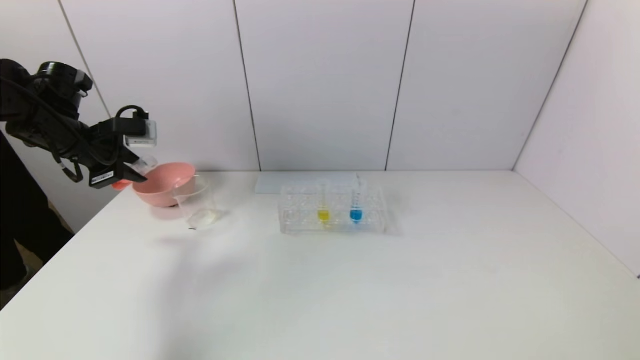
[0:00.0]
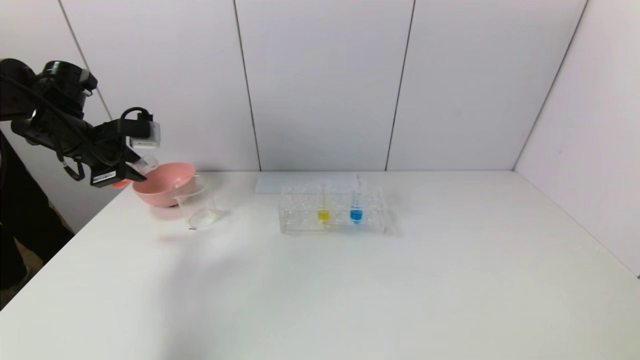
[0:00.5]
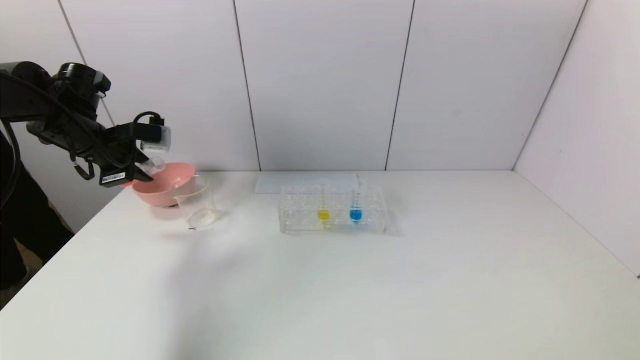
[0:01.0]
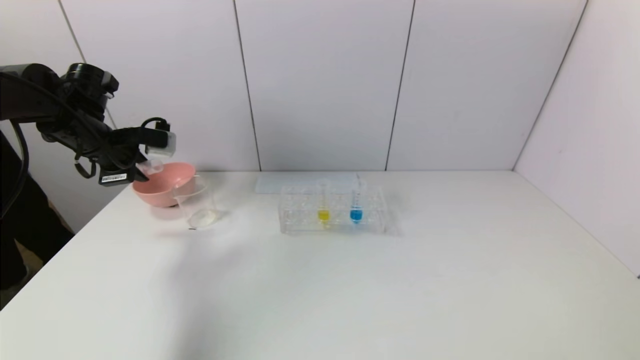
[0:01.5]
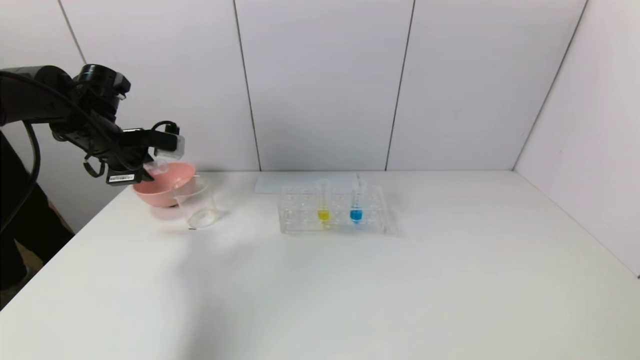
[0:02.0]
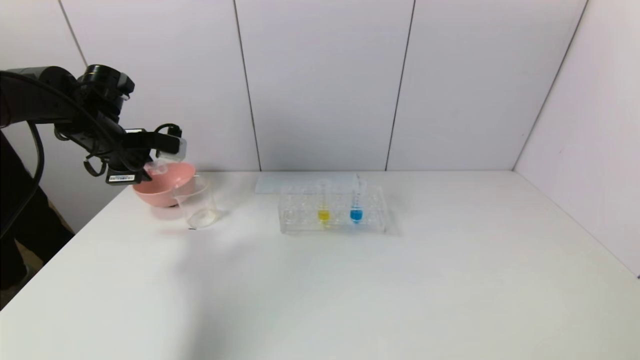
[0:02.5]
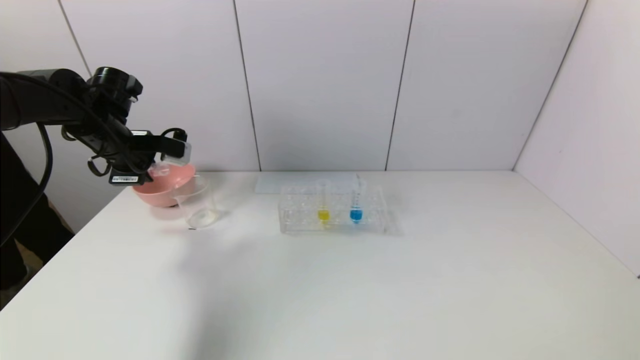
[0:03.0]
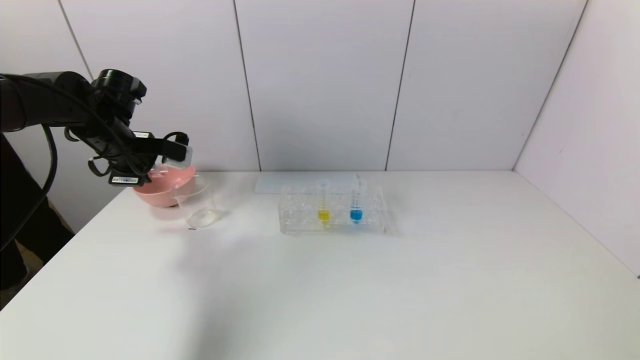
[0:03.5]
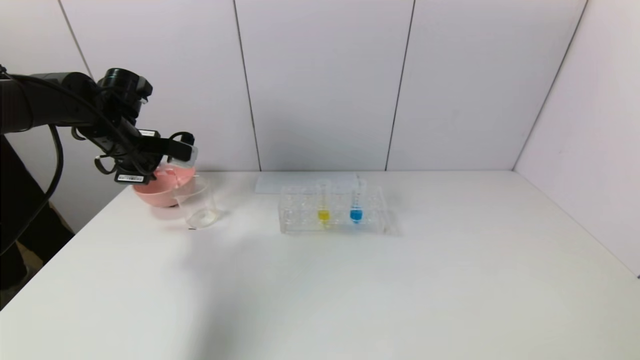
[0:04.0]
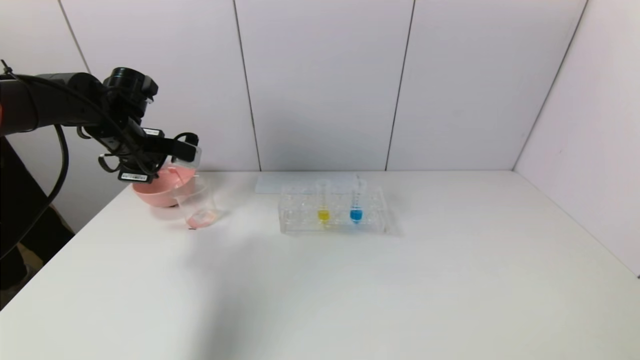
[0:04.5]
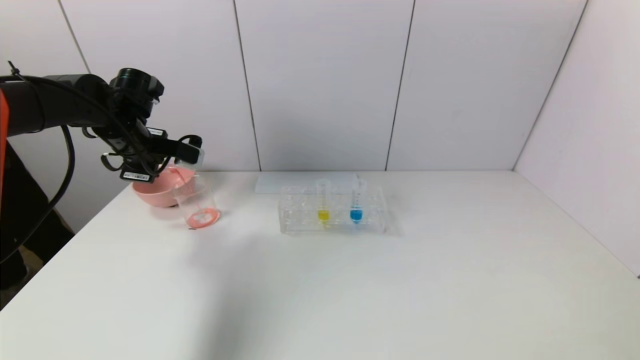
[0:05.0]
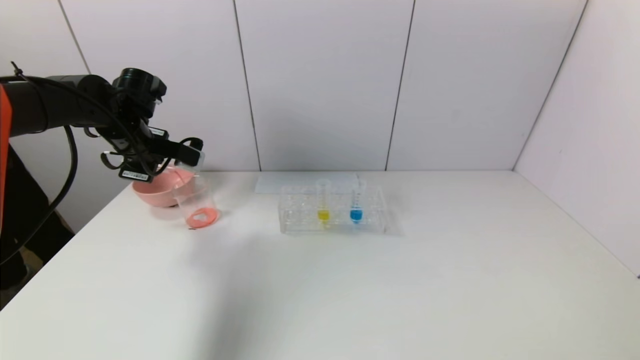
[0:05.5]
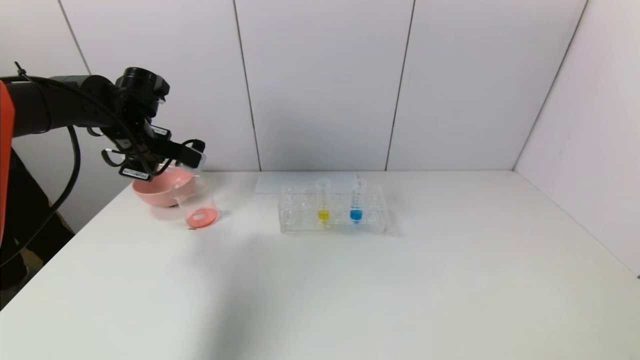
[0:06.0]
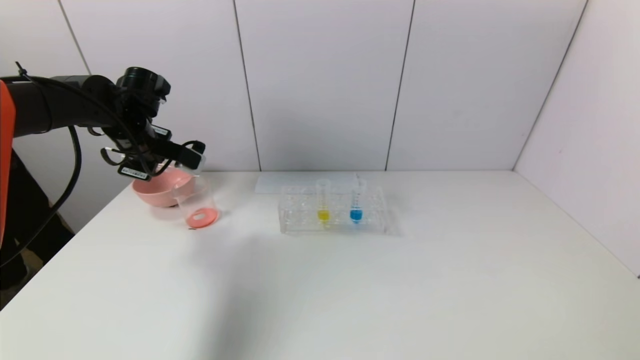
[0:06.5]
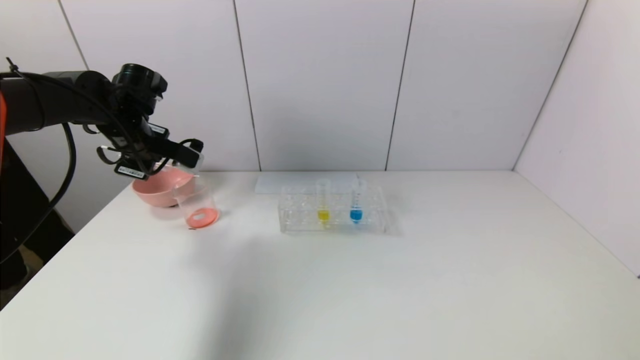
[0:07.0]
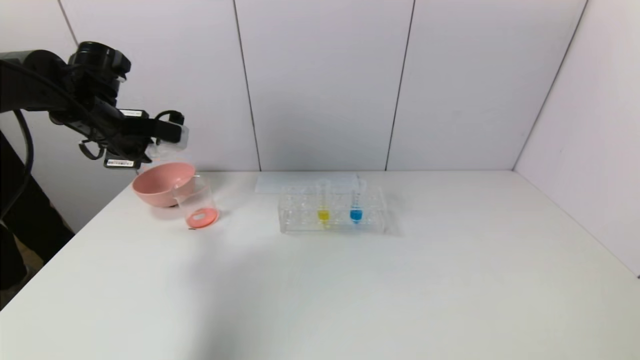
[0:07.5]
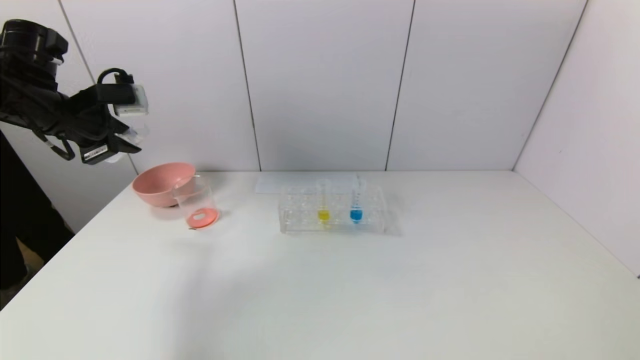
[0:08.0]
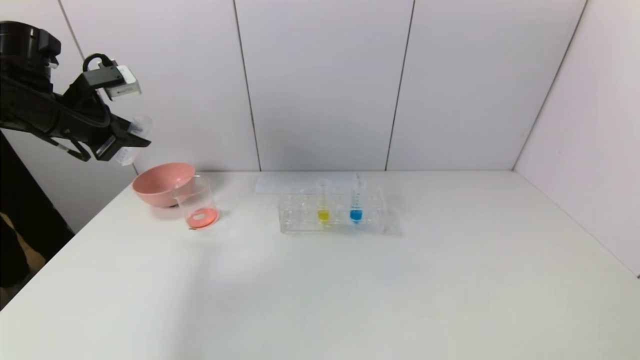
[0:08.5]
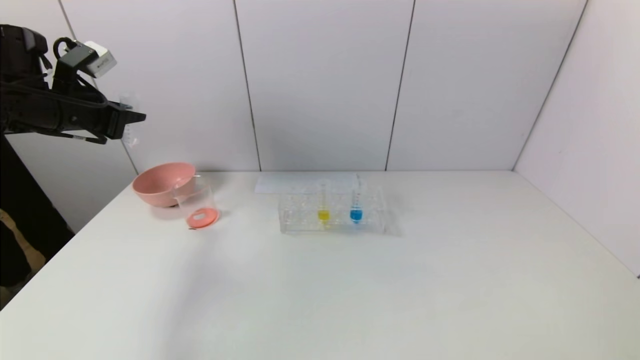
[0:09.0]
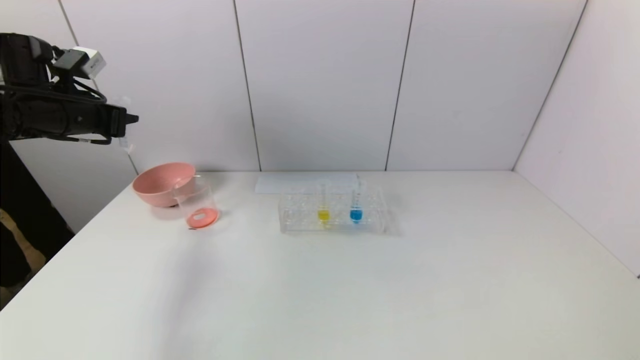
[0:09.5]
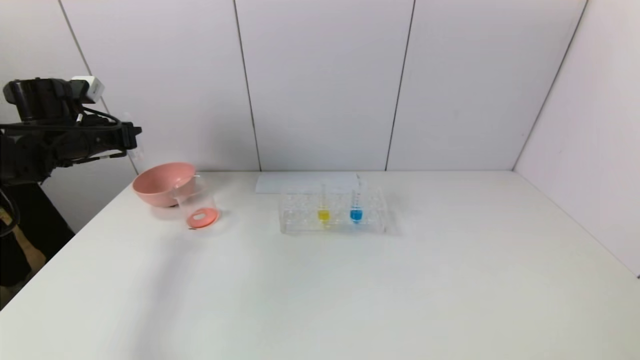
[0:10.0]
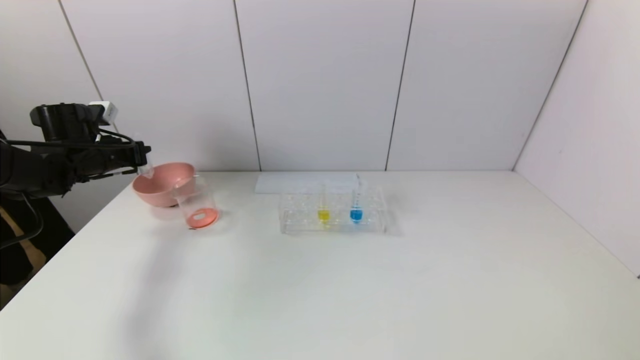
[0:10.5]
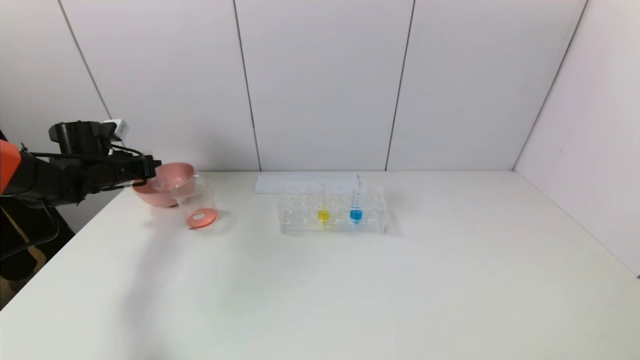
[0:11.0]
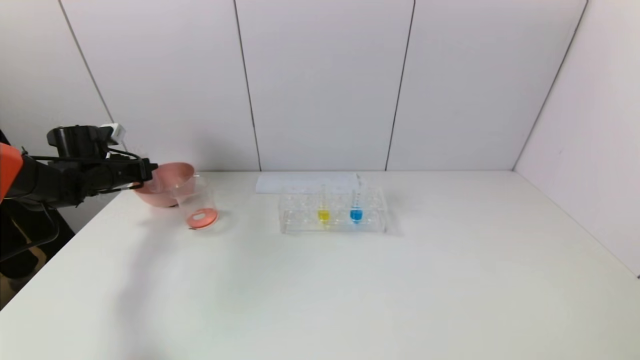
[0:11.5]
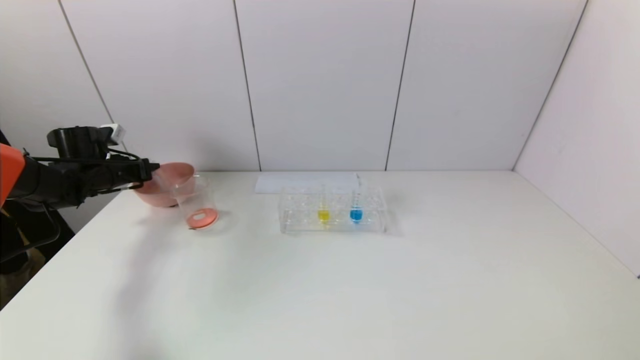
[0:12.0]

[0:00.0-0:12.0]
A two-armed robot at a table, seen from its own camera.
Task of the whole recording: pick up the test tube with yellow pigment and the test tube with red pigment by grippers and pour them into the beaker.
Step, 0:00.0 to 0:06.0: Pour the red reagent into the graduated cylinder with the left gripper.
0:00.0 to 0:02.0: The grippers stay close to where they were, moving slightly.
0:02.0 to 0:04.0: The grippers stay close to where they were, moving slightly.
0:04.0 to 0:06.0: There are only small adjustments of the grippers.
0:06.0 to 0:08.0: The left gripper heads backward, upward and to the left, covering approximately 10 cm.
0:08.0 to 0:10.0: The left gripper is displaced downward by about 5 cm.
0:10.0 to 0:12.0: The left gripper goes approximately 10 cm downward.

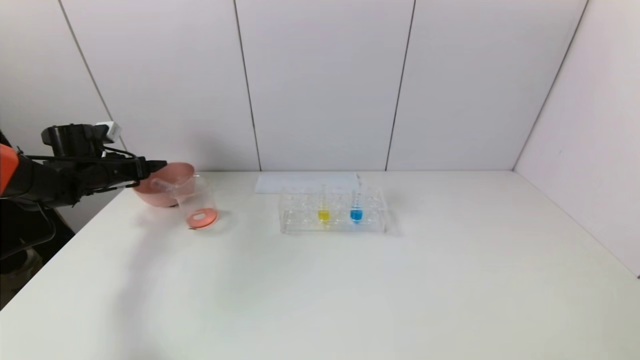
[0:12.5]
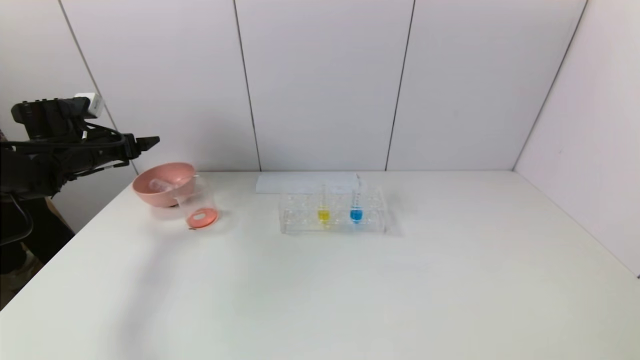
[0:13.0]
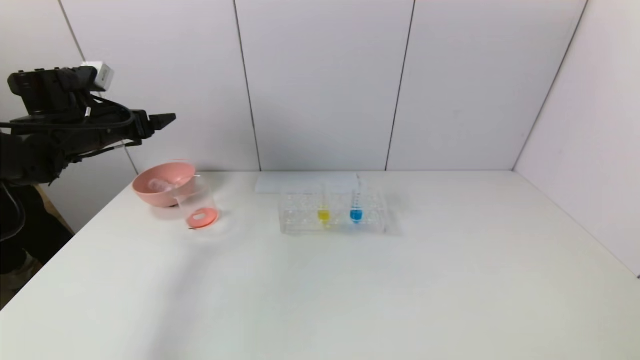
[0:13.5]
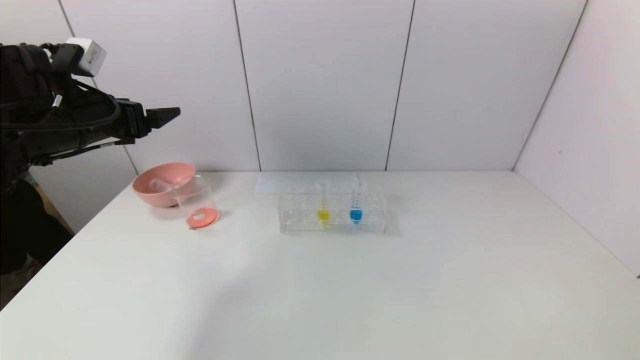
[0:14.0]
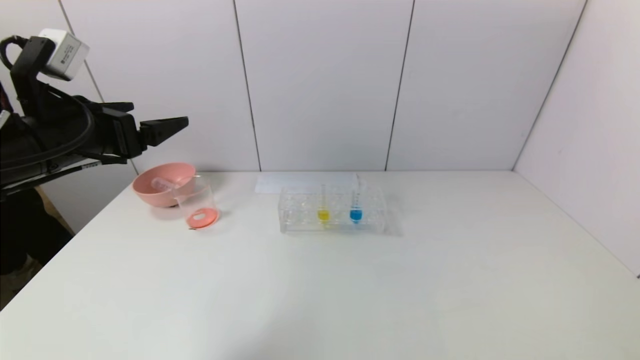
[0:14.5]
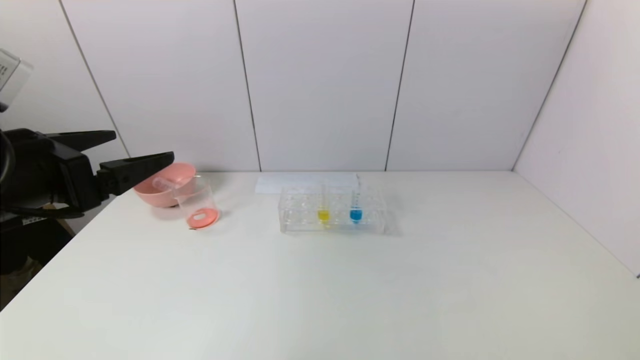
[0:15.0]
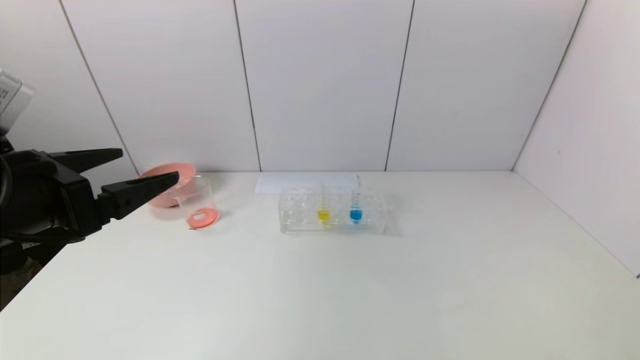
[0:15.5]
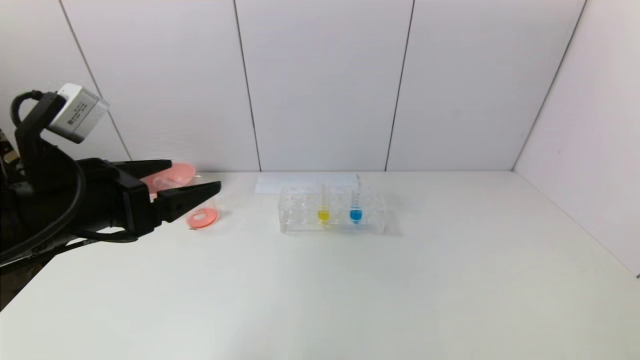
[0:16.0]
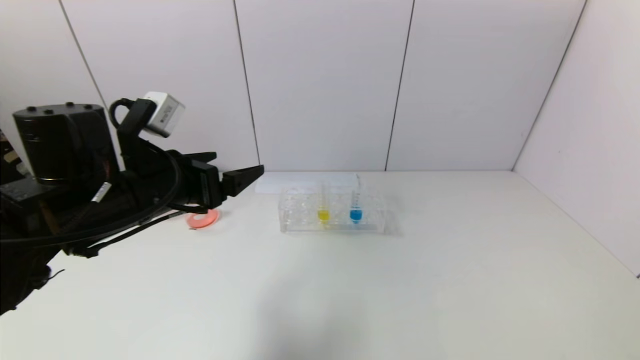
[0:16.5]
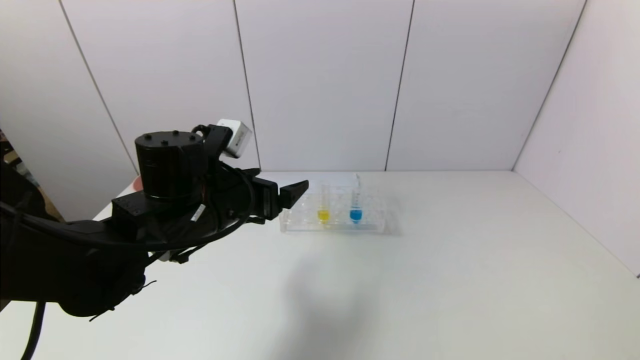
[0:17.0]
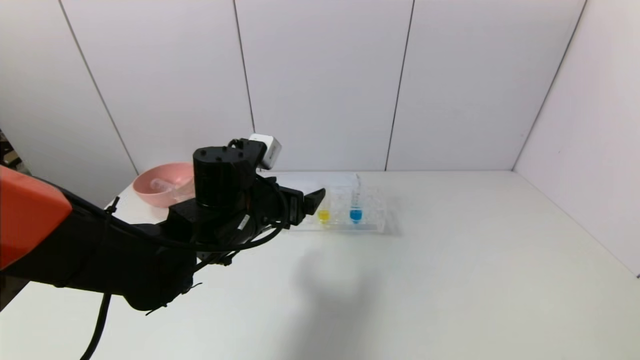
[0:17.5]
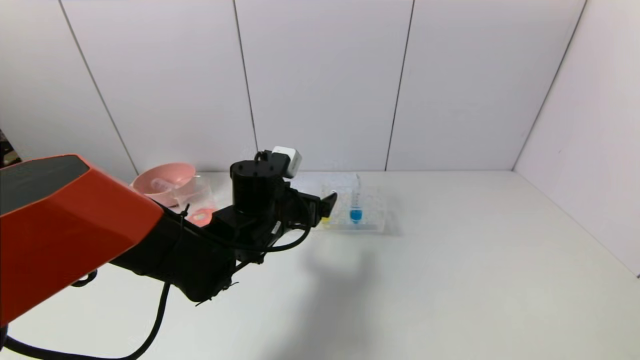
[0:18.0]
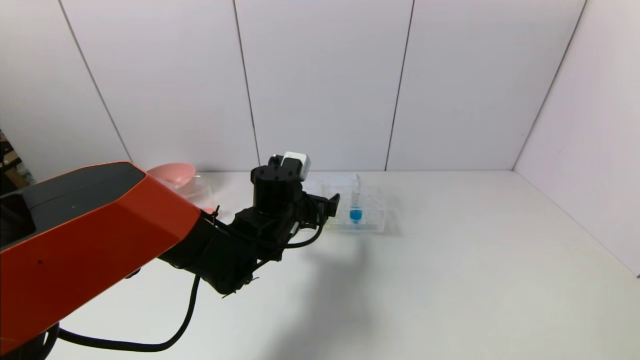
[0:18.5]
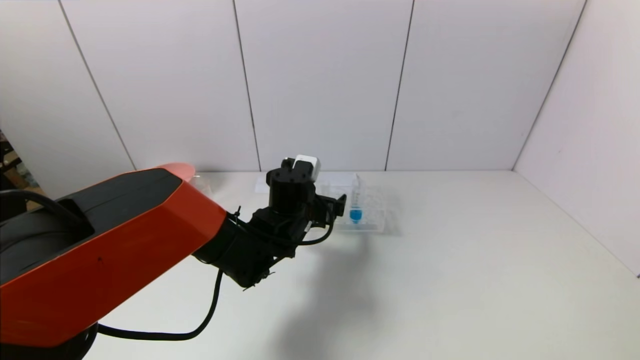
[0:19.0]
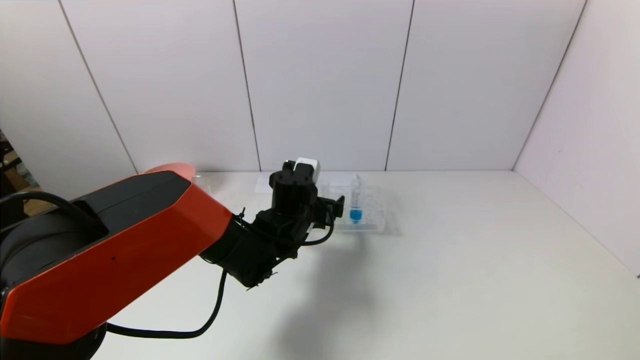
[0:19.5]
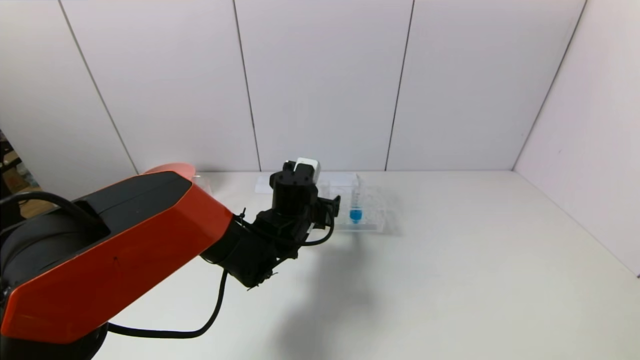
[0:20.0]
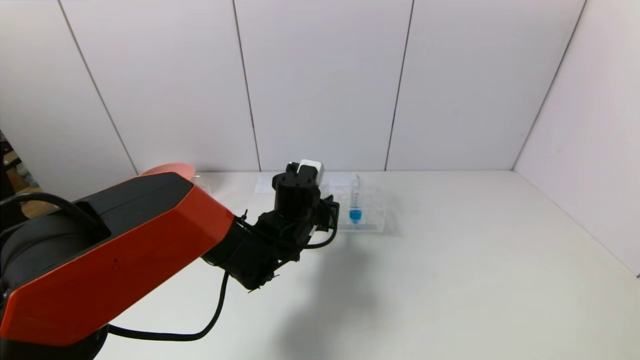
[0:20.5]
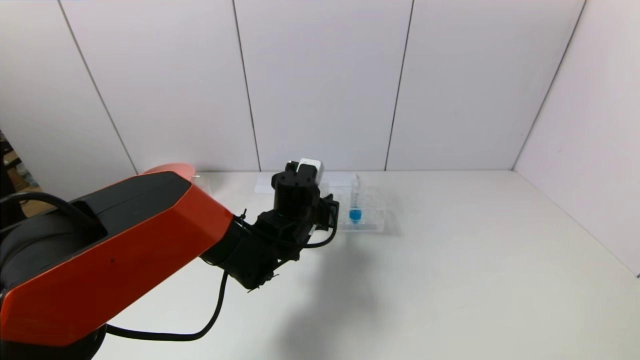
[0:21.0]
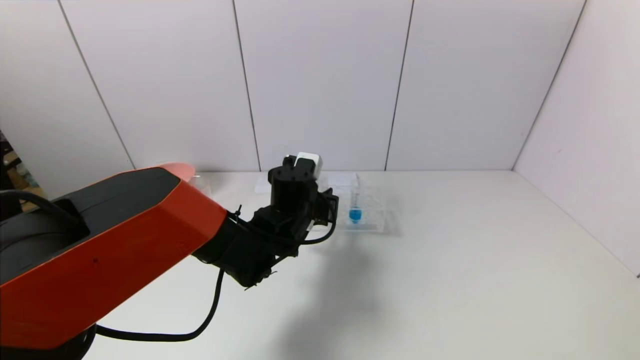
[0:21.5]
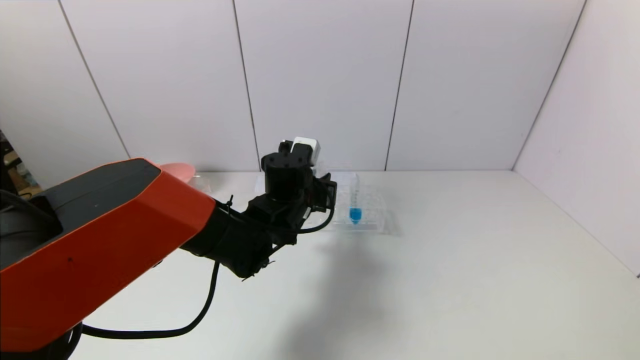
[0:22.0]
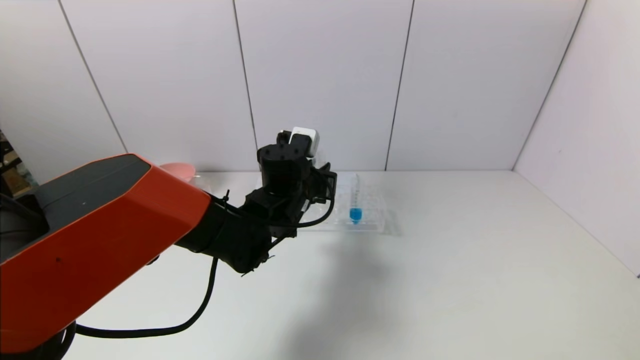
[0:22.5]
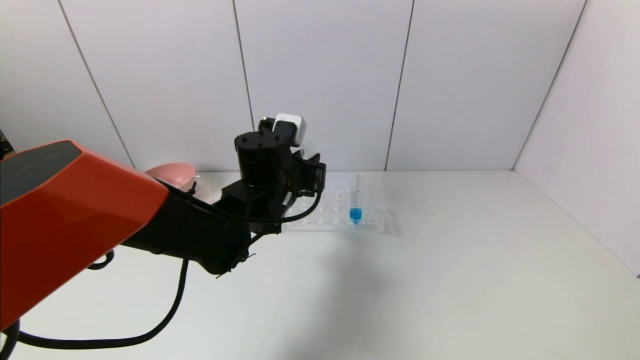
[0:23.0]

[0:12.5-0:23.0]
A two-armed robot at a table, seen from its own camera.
Task of the whole recording: pick up the test tube with yellow pigment and the test tube with red pigment by grippers and pour them into the beaker.
Step, 0:12.5 to 0:20.5: Grasp the yellow reagent with the left gripper.
0:12.5 to 0:14.5: The left gripper goes about 30 cm backward, to the right and upward.
0:14.5 to 0:16.5: The left gripper heads to the right and downward, covering about 10 cm, and moves roughly 10 cm backward and comes back.
0:16.5 to 0:19.0: The left gripper moves to the right, downward and forward, approximately 25 cm.
0:19.0 to 0:21.0: The left gripper closes its fingers.
0:21.0 to 0:23.0: The left gripper is displaced upward by some 10 cm.
